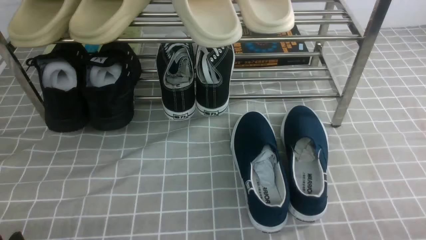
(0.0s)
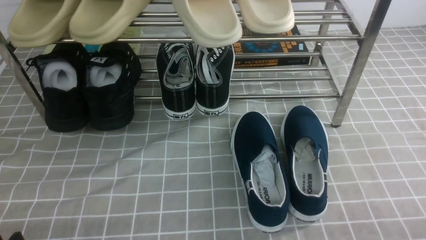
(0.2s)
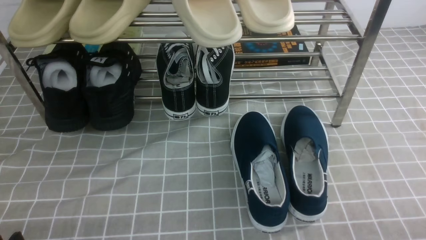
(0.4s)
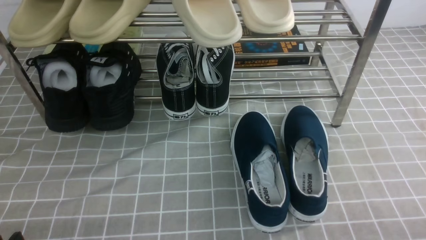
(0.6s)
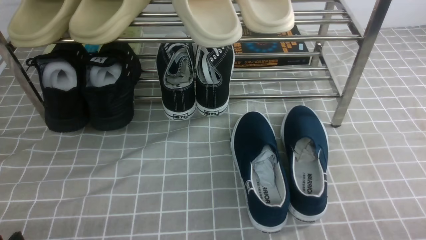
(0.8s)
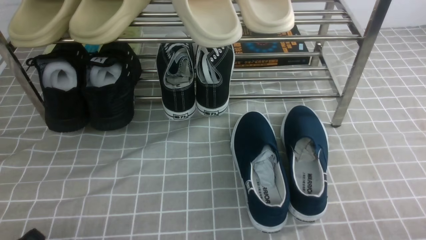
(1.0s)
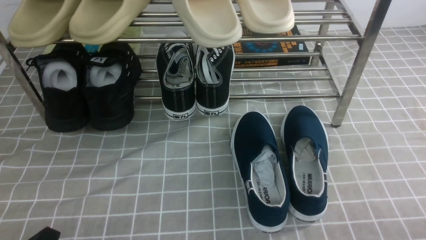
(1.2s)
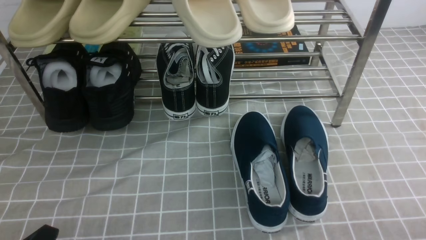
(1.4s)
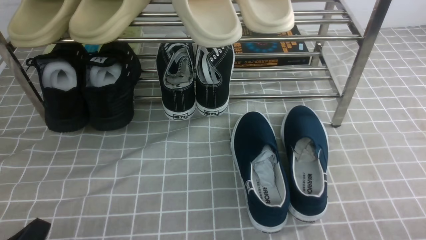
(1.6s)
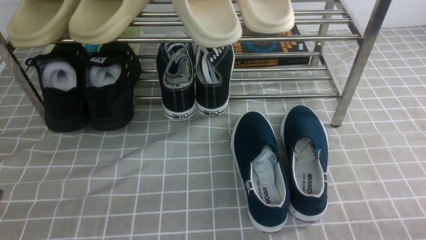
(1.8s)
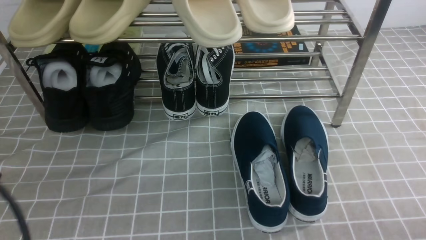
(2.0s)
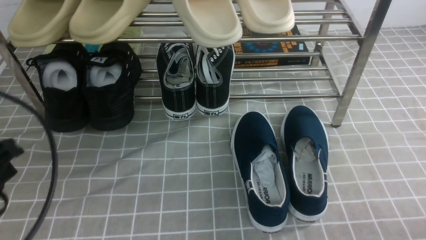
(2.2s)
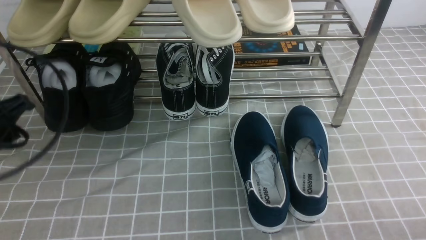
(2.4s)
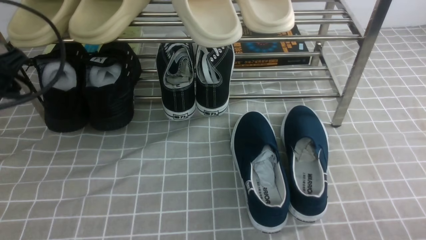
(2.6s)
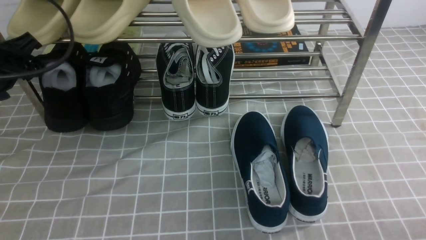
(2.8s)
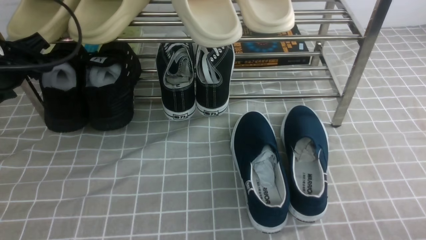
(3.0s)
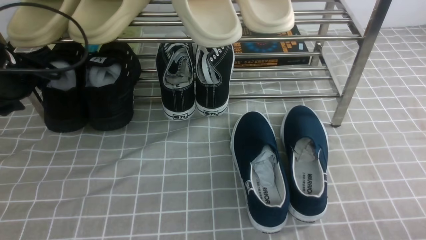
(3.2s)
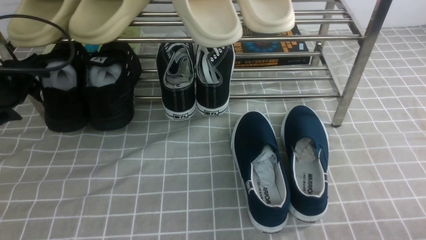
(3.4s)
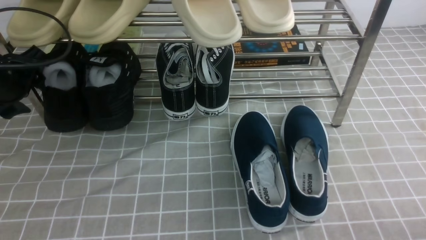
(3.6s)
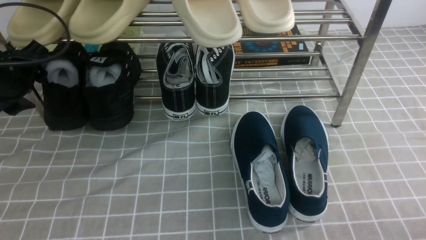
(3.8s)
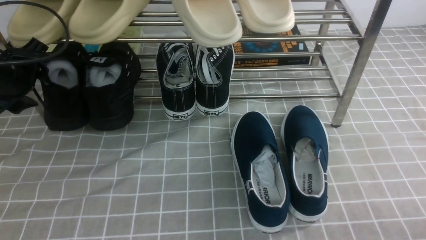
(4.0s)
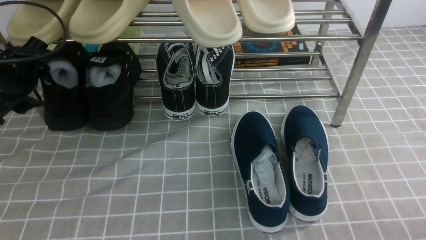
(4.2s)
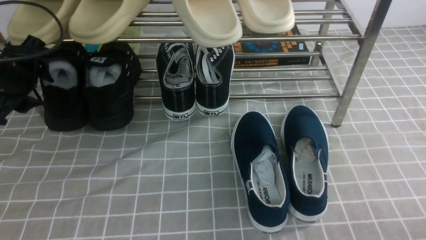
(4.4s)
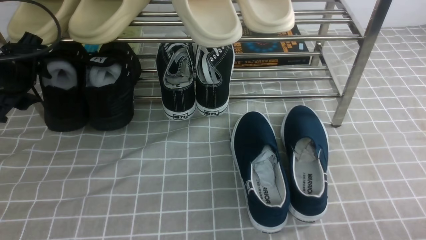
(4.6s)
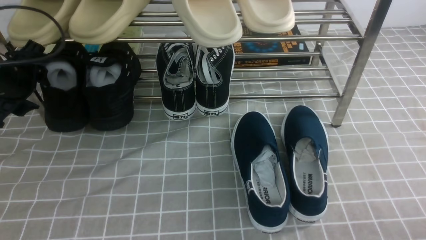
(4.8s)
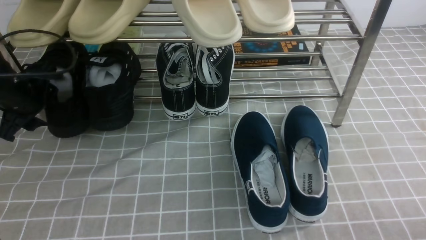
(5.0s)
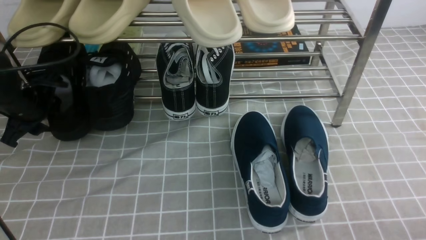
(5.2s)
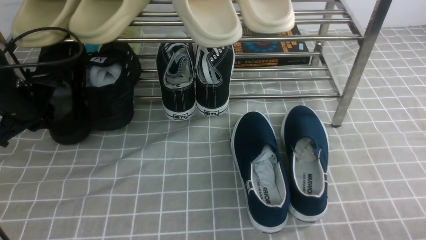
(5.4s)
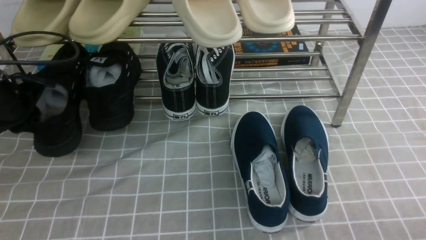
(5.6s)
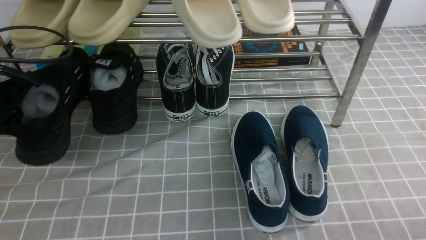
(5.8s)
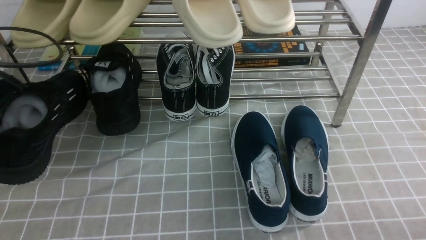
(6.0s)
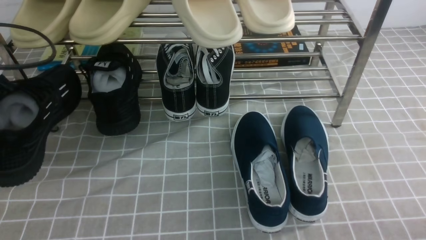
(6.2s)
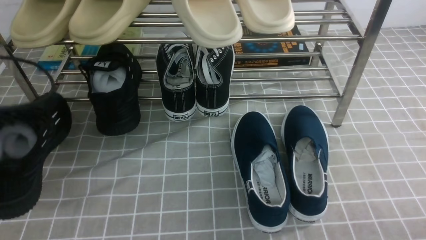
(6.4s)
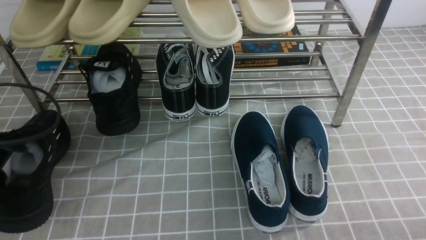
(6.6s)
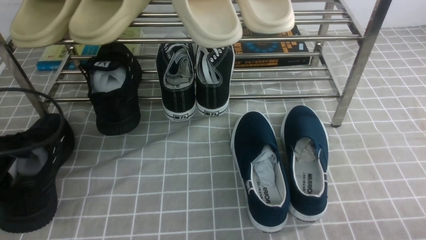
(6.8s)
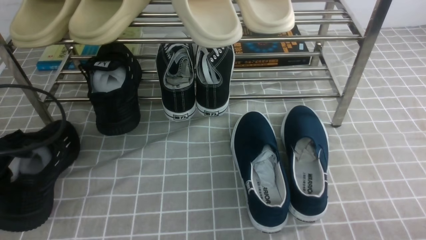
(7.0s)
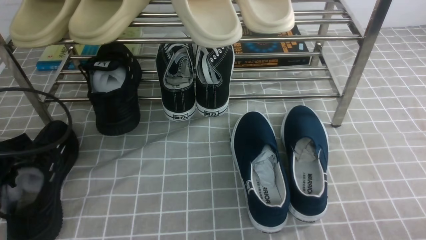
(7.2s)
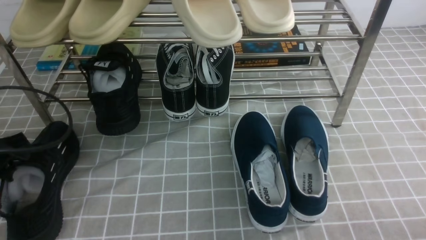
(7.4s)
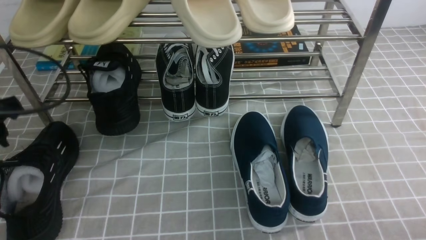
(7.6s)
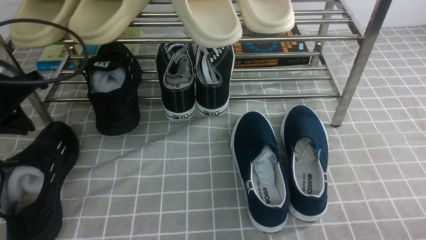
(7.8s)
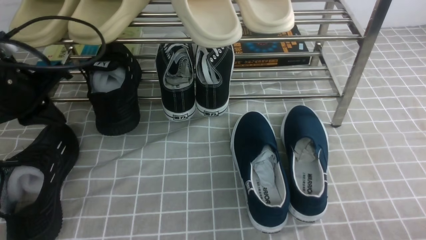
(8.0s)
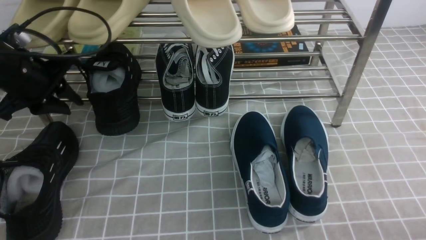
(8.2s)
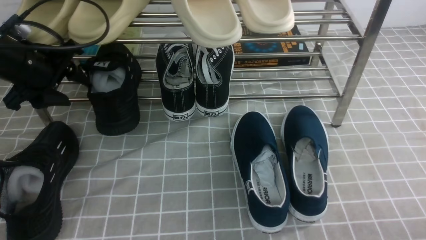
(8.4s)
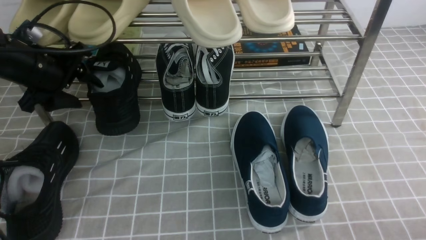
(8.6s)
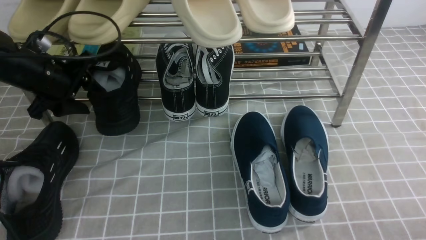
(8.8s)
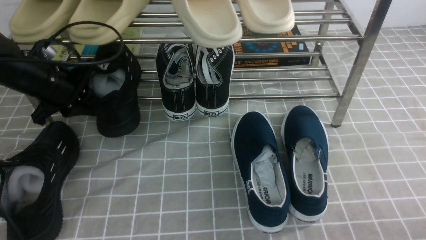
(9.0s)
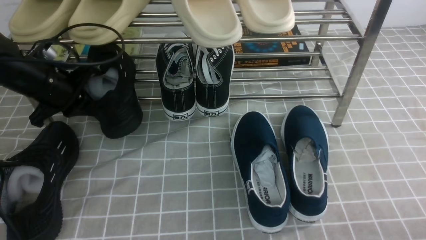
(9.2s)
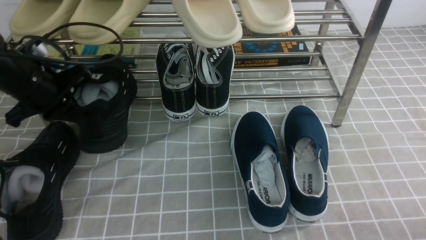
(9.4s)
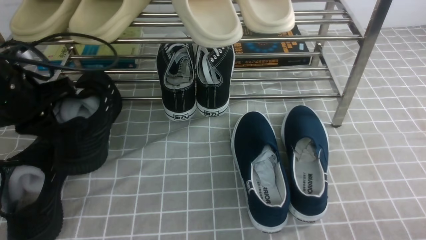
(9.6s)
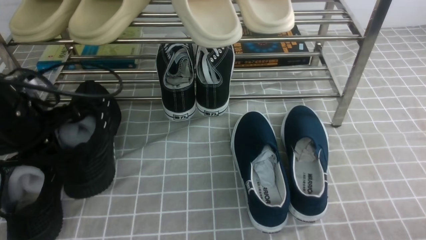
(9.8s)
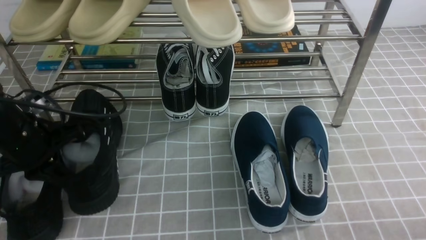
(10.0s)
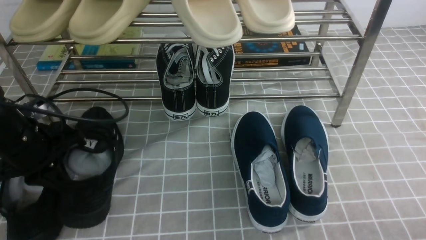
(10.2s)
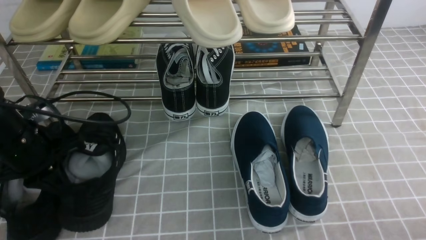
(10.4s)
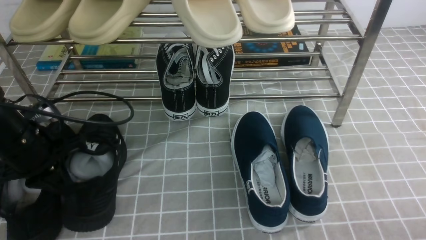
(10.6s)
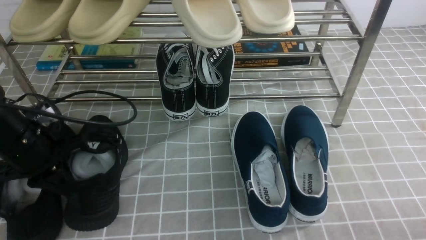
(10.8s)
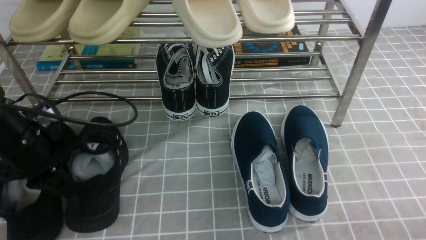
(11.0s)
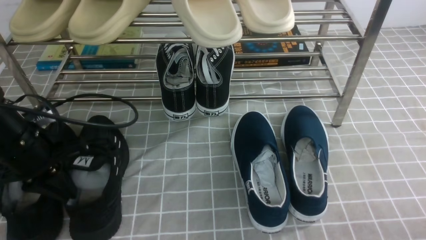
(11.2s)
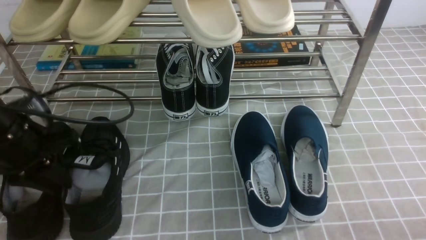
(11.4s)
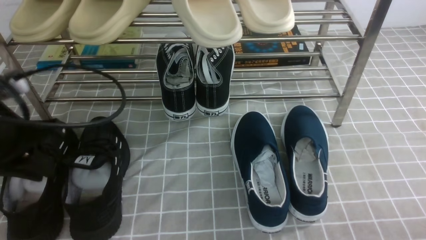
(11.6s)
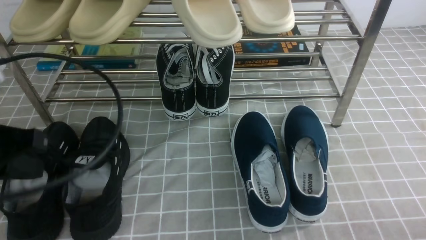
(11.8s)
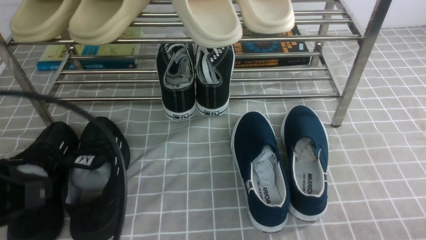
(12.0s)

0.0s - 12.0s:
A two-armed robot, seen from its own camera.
Step, 0.0s - 5.6s: use the left arm to clamp a shoe on the left side of the shoe rack.
Step, 5.8s - 7.4s: Use your left arm to remove the clamped shoe from the shoe rack and put it down.
Step, 7.6s - 9.2s: use the left arm to clamp a shoe on the left side of the shoe rack.
Step, 9.4s - 11.4s: Use your left arm to remove the clamped shoe from the shoe rack and put it down.
1.6s - 3.0s: The left gripper goes about 30 cm forward and upward, and opens its fingers.
4.4s - 6.0s: The left gripper shifts some 5 cm backward, and closes its fingers.
6.0s - 7.6s: The left gripper opens its fingers.
7.6s - 9.0s: The left gripper shifts roughly 15 cm forward, and opens and closes again.
9.0s - 10.4s: The left gripper shifts approximately 10 cm backward, and closes up.
10.4s - 12.0s: The left gripper goes roughly 20 cm backward and upward, and opens, then closes again.

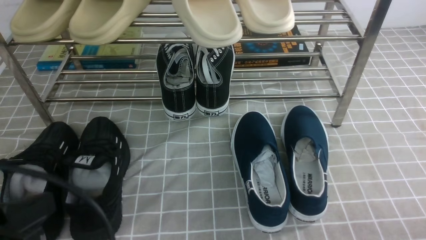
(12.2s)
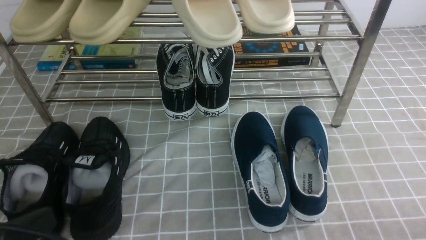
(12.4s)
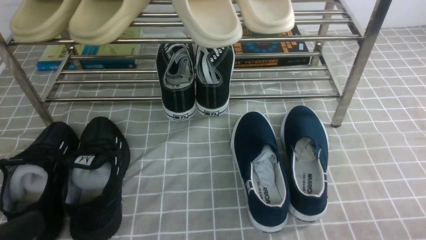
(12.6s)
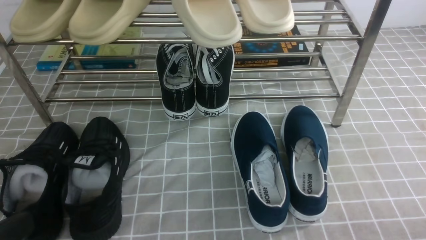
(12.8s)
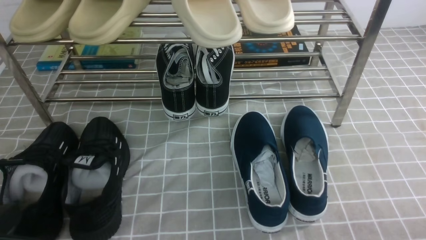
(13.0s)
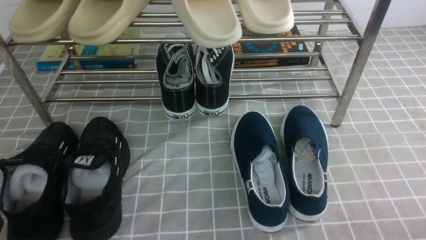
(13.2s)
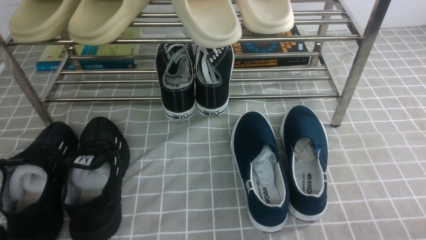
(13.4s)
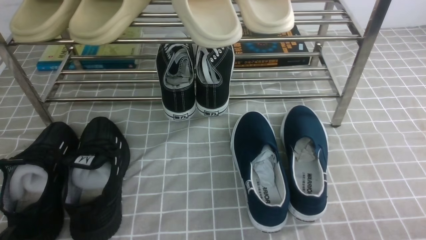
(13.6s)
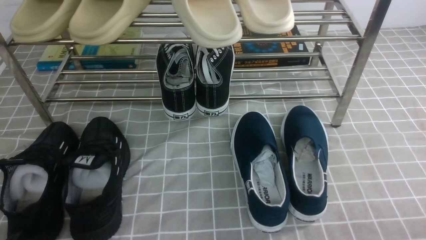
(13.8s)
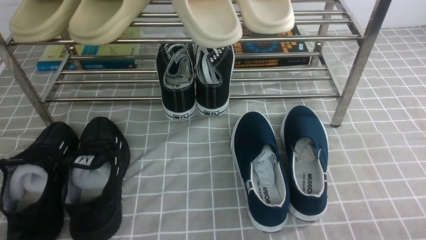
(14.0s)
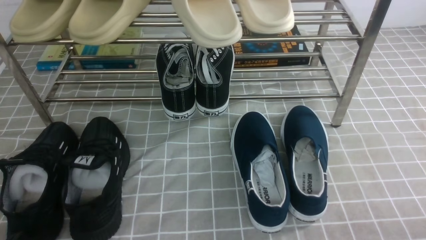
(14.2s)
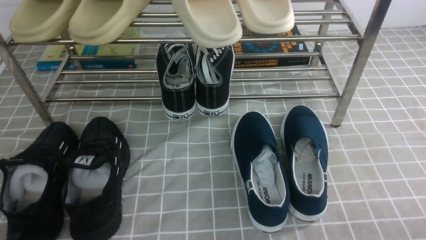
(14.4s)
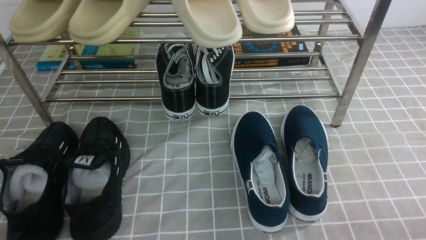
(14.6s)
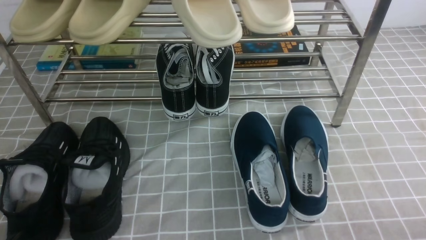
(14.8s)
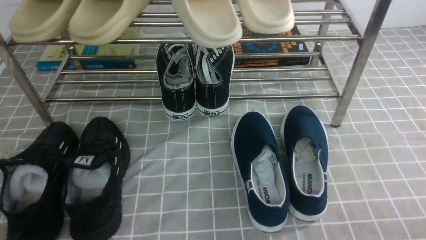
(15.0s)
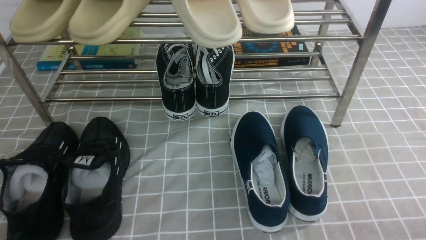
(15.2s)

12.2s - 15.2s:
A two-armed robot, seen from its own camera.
12.2s - 13.8s: The left gripper shifts some 15 cm downward.
13.8s - 15.2s: The two grippers keep their place.

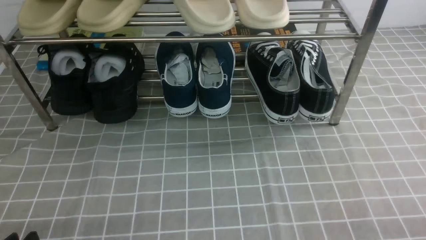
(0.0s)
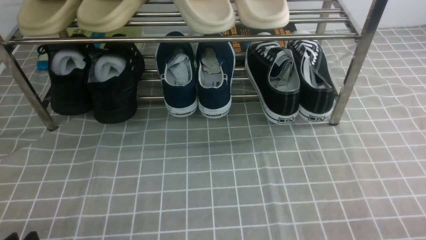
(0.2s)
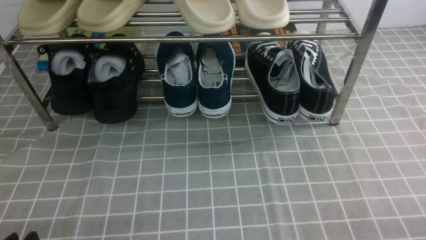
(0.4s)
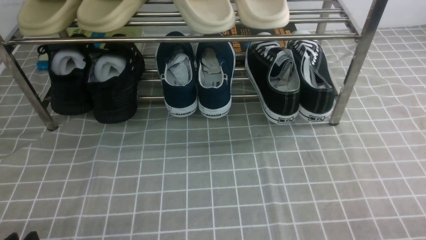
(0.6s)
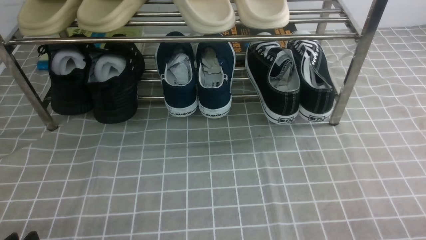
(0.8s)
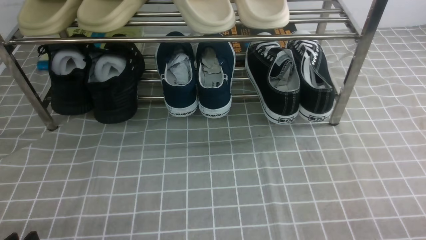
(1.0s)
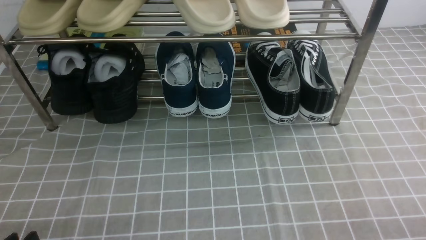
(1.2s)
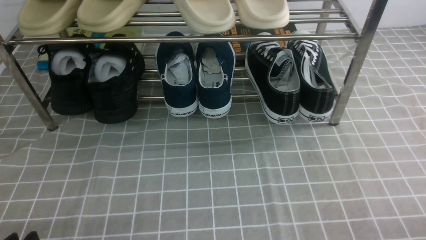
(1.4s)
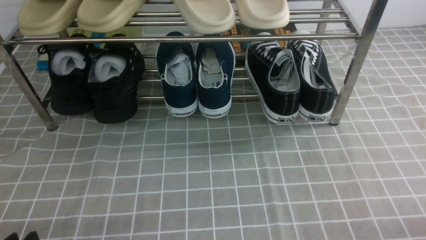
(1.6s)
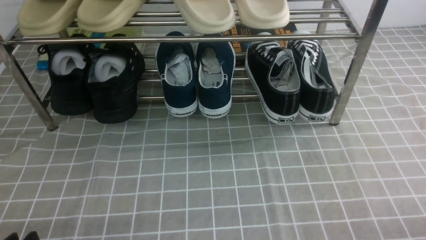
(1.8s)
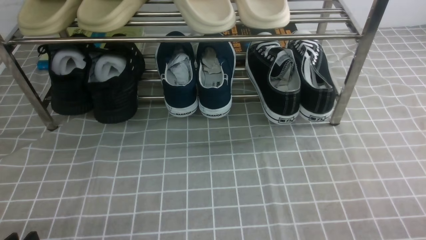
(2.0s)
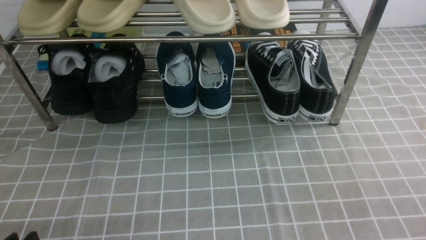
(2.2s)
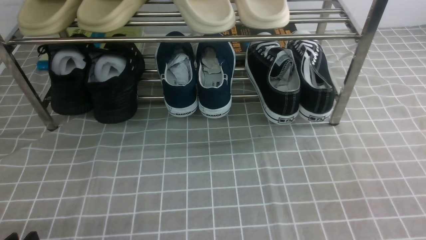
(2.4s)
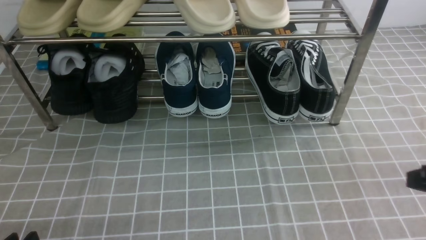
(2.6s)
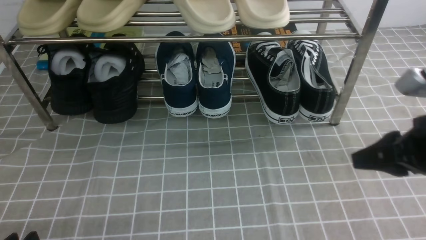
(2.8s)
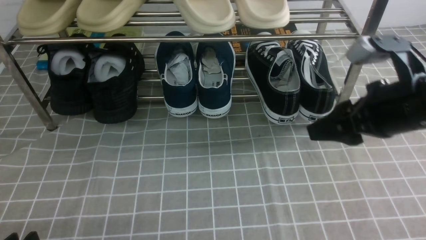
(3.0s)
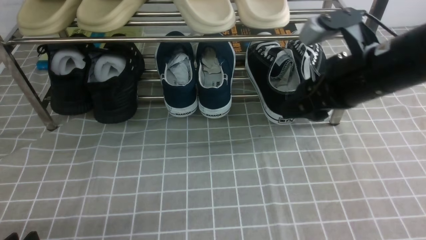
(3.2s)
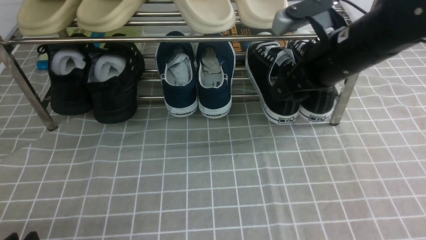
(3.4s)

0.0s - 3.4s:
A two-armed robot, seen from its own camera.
1.6s - 3.4s: The right gripper travels forward, to the left and upward by approximately 35 cm, and opens its fingers.
